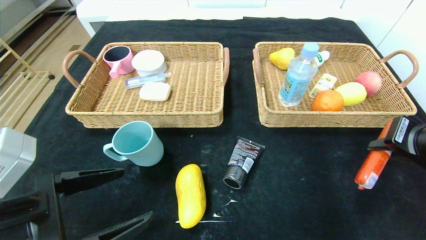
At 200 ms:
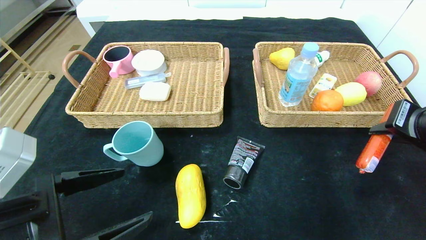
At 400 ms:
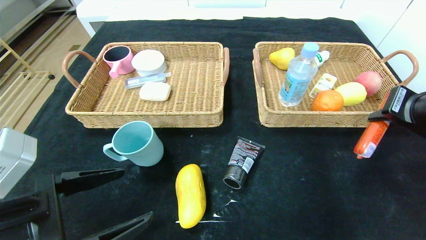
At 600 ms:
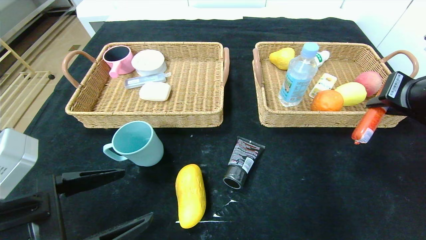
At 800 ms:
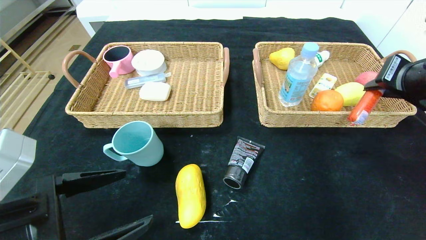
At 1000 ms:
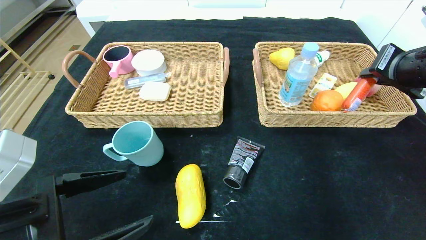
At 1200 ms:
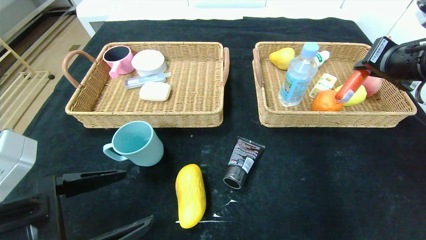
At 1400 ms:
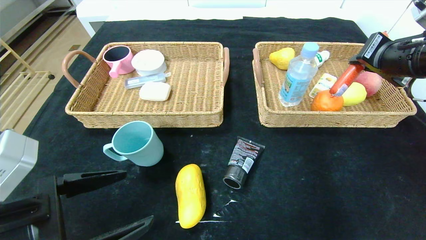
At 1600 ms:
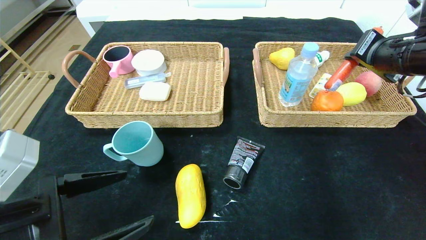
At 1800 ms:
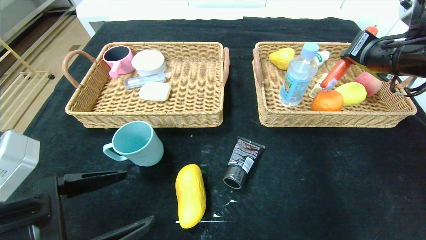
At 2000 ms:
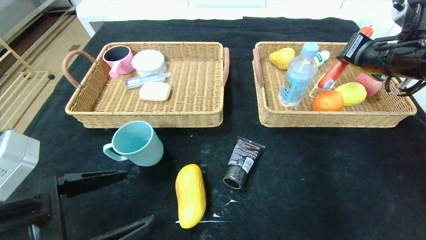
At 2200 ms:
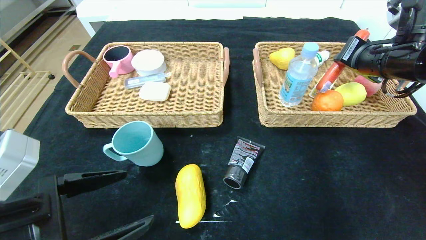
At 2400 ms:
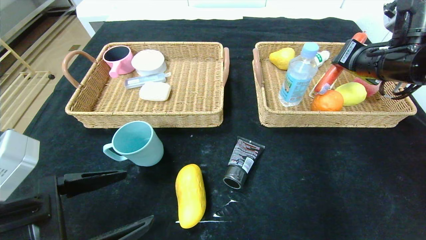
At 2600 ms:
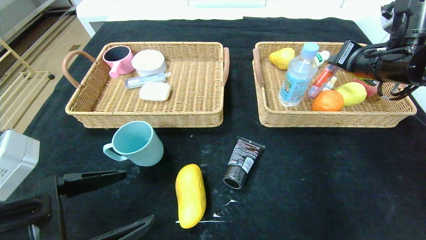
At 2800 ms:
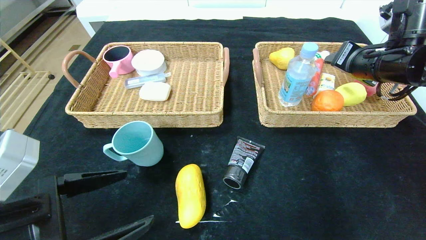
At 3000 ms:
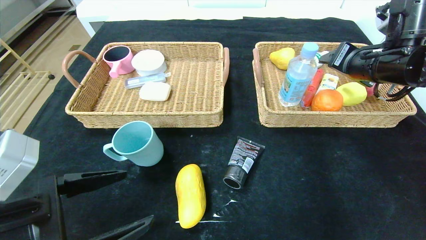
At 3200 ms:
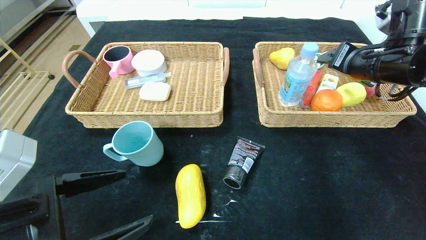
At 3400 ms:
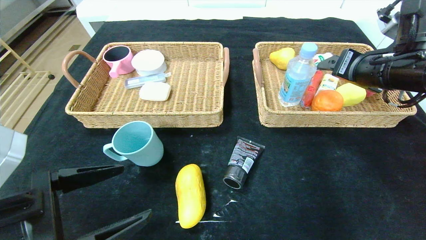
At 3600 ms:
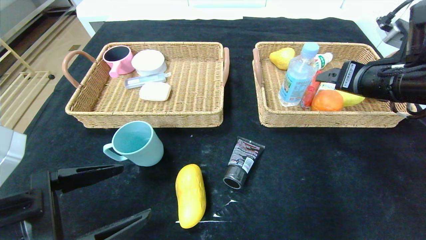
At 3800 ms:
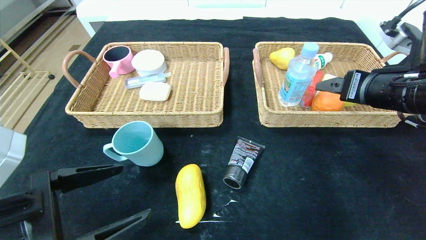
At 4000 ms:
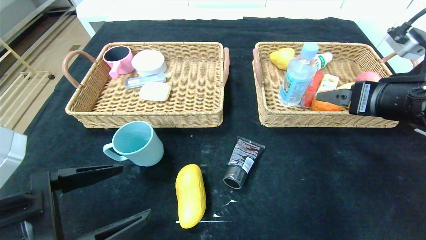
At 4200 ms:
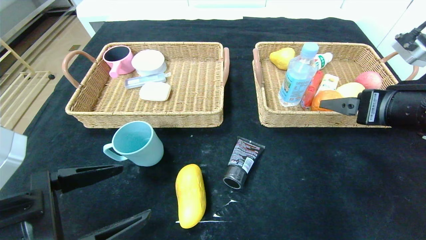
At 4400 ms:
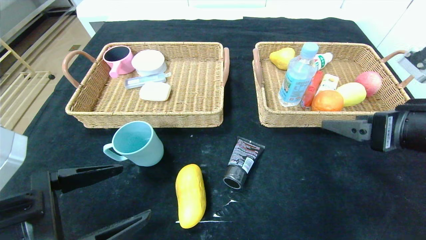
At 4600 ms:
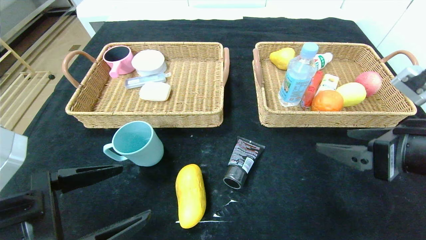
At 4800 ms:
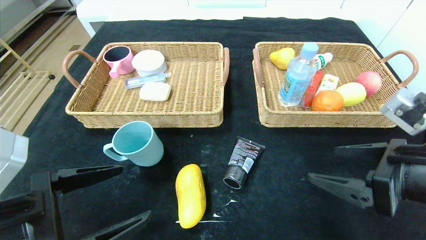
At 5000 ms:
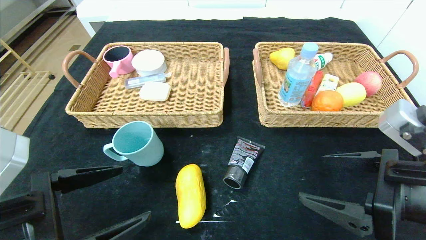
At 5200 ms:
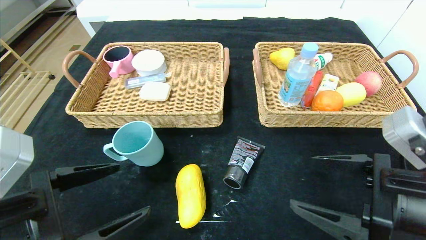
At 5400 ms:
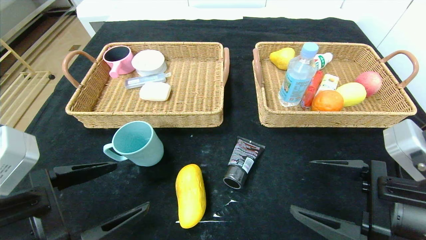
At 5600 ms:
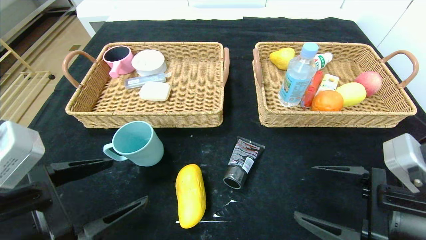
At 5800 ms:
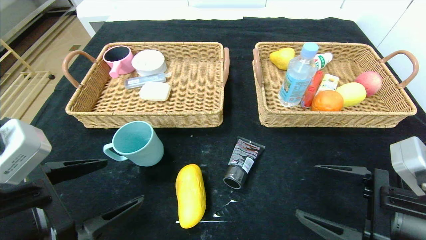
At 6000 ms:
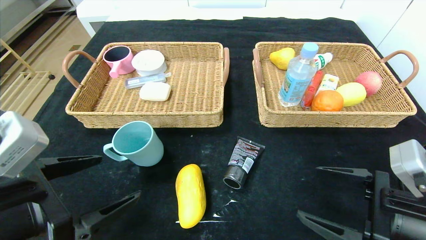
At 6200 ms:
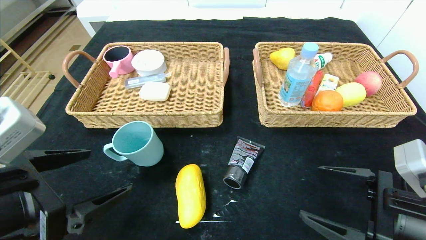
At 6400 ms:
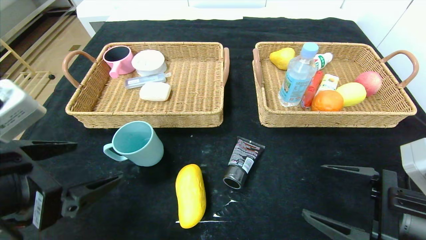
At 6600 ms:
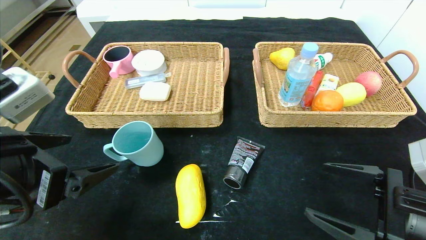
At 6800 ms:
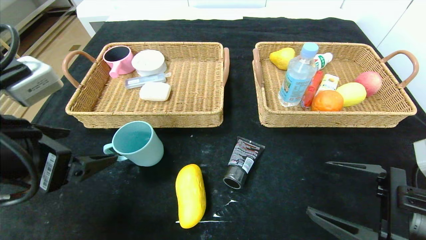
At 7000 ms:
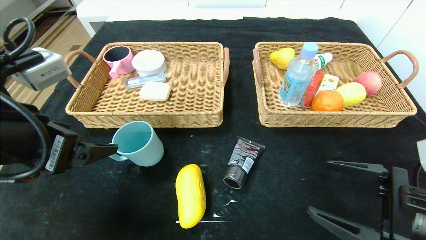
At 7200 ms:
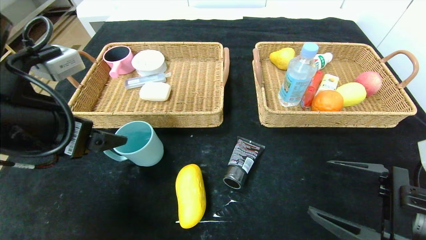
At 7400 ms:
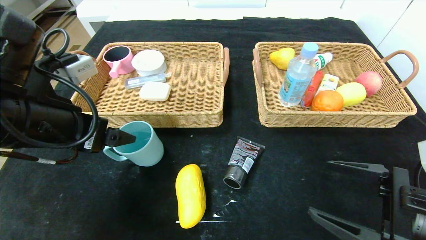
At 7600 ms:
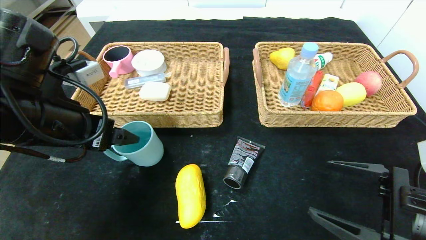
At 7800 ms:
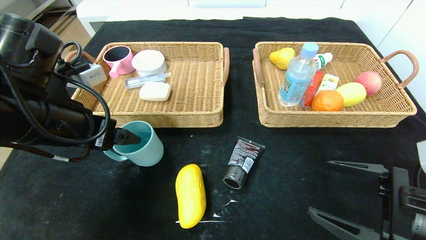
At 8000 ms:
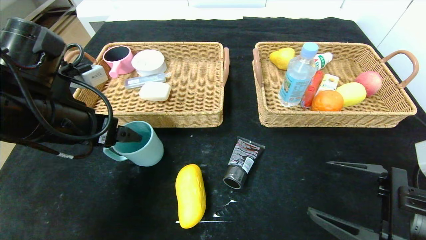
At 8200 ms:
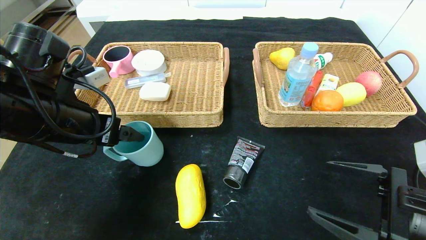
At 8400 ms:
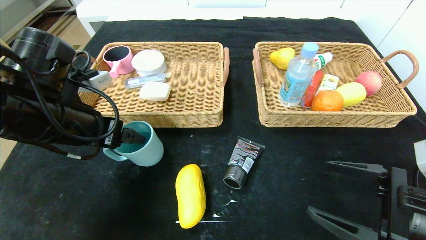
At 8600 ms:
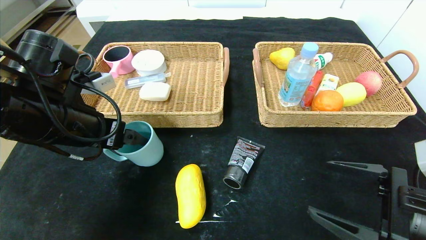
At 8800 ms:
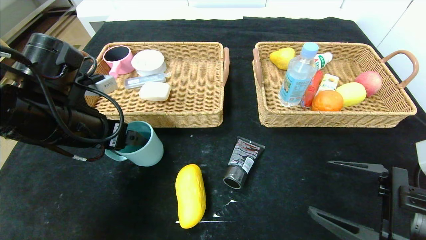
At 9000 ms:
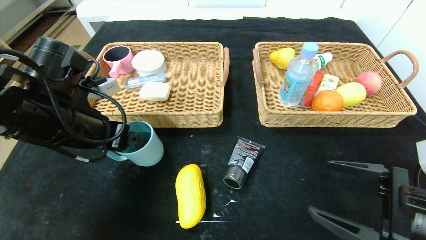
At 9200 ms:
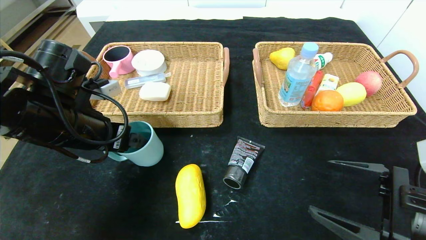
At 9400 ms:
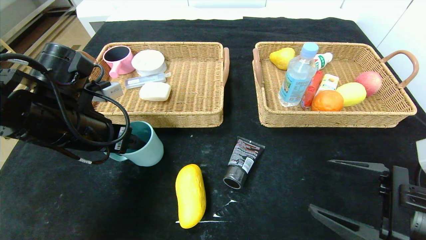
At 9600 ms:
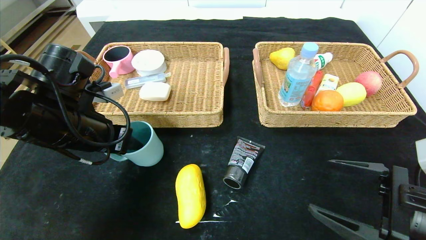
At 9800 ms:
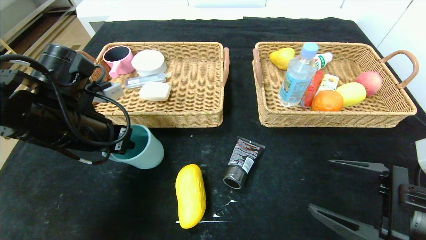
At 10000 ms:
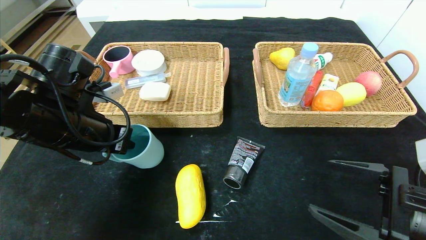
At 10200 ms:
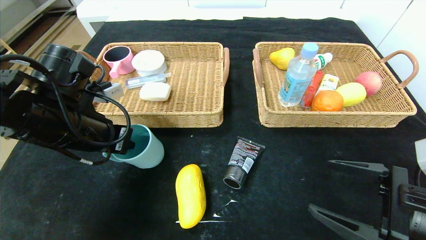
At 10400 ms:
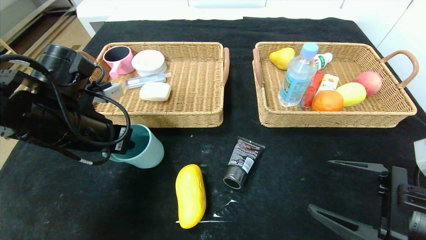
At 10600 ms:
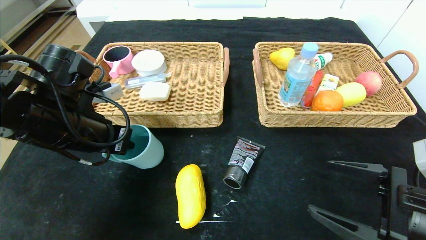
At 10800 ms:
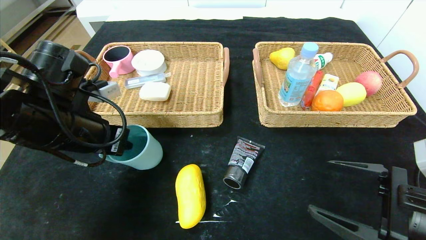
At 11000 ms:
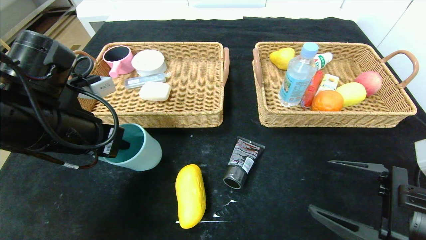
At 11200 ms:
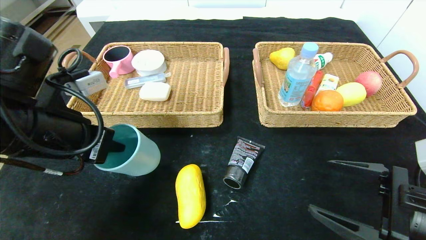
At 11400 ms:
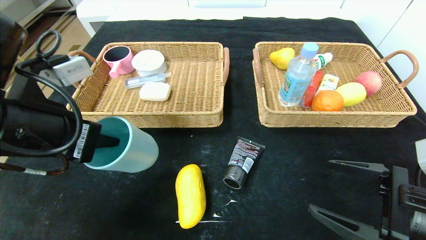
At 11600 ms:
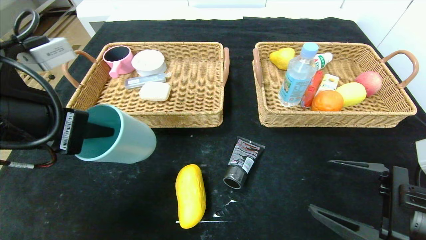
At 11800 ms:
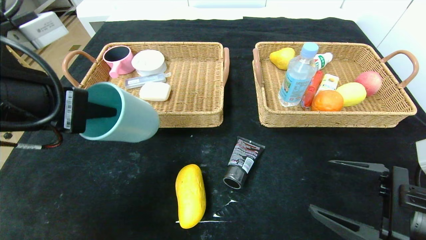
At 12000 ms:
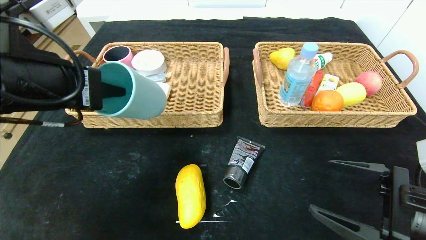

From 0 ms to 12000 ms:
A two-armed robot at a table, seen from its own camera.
Step, from 0 ms to 2800 ms: Grasp the sausage and put it in the right basket.
From 0 ms to 1600 ms: The right gripper goes approximately 15 cm forward and upward.
From 1600 ms to 3000 ms: The right gripper opens.
From 3000 ms to 4400 ms: The right gripper moves backward, approximately 15 cm.
From 4400 ms to 6000 ms: The right gripper travels downward and backward by approximately 10 cm.
From 6000 ms to 7600 ms: The left gripper travels forward and upward by about 10 cm.
From 7600 ms to 9000 ms: The grippers make only small movements.
From 9000 ms to 10400 ms: The left gripper closes up.
From 10400 ms to 12000 ms: The left gripper goes roughly 10 cm upward and backward.

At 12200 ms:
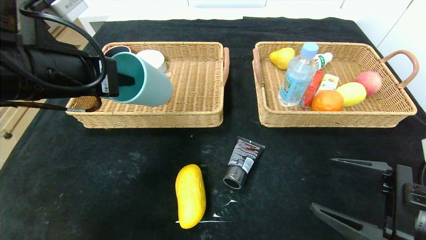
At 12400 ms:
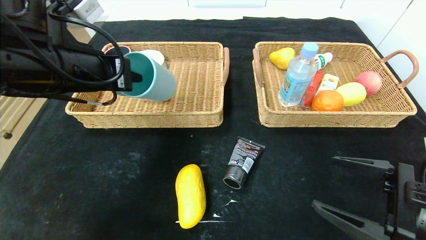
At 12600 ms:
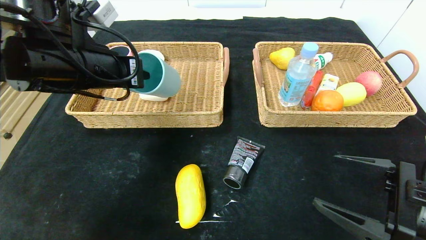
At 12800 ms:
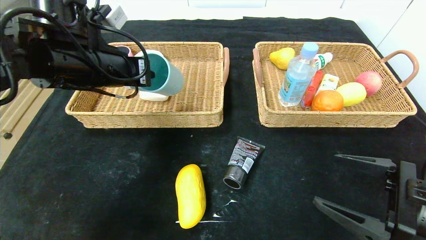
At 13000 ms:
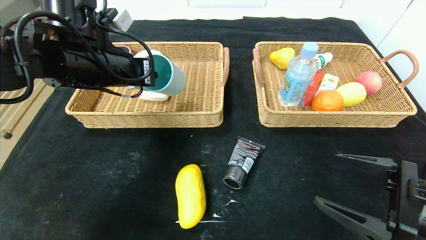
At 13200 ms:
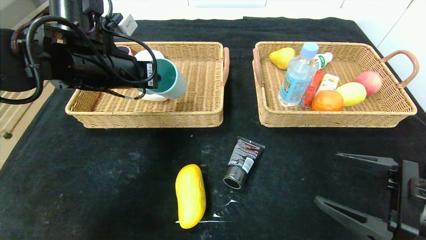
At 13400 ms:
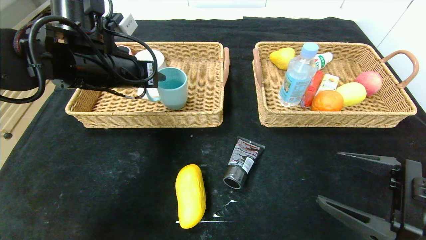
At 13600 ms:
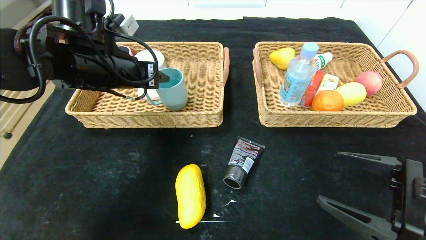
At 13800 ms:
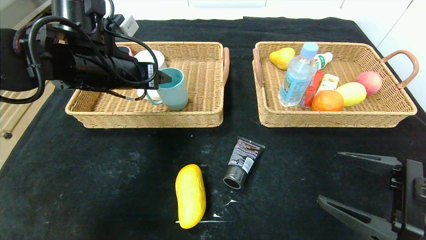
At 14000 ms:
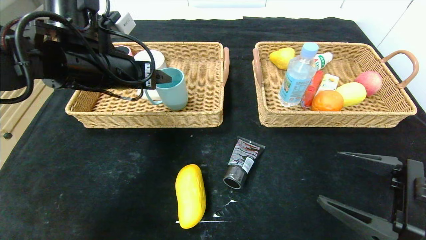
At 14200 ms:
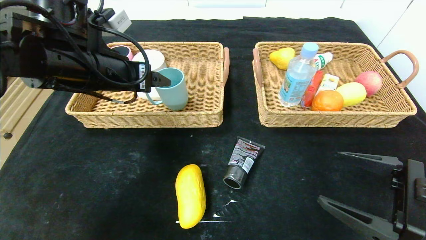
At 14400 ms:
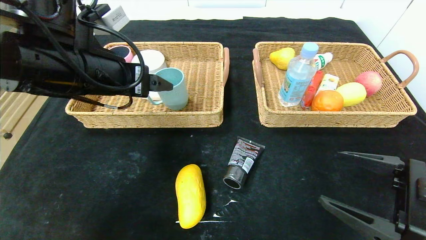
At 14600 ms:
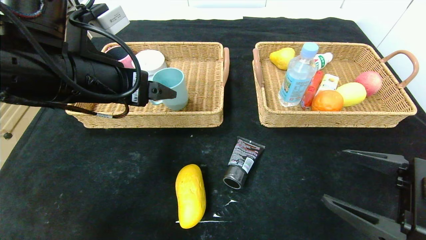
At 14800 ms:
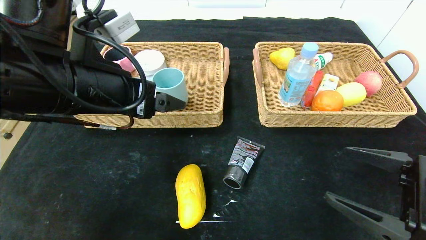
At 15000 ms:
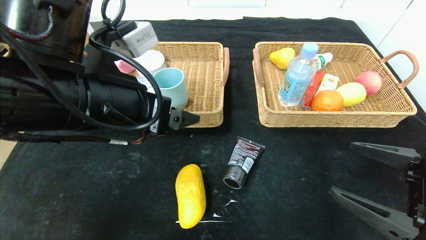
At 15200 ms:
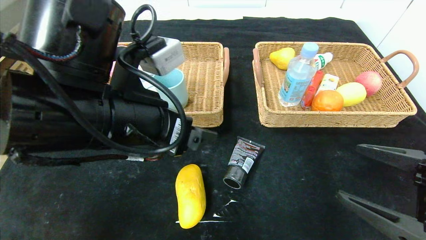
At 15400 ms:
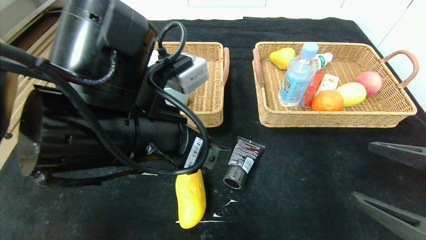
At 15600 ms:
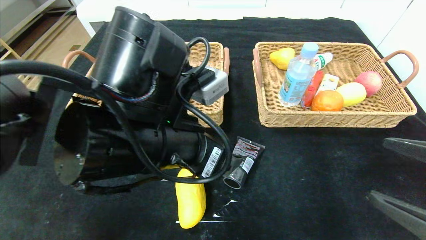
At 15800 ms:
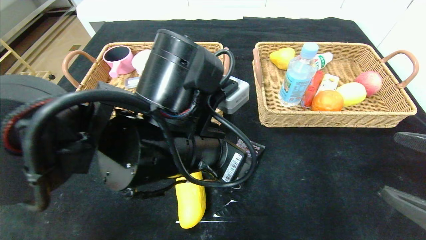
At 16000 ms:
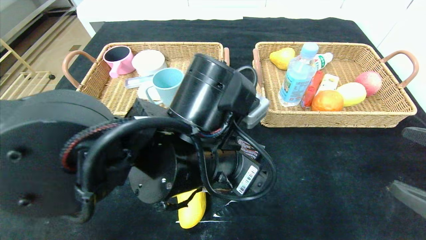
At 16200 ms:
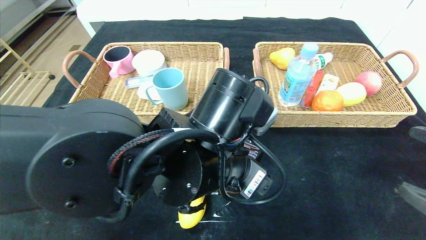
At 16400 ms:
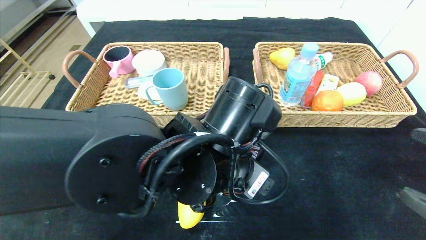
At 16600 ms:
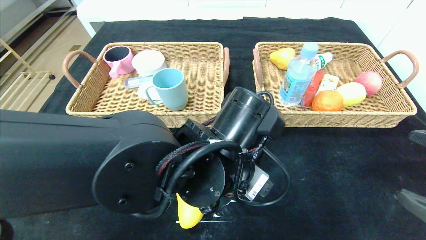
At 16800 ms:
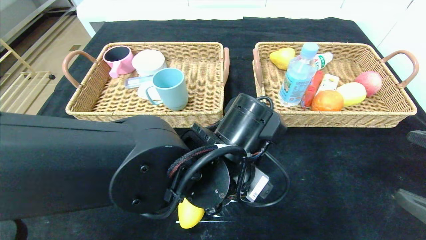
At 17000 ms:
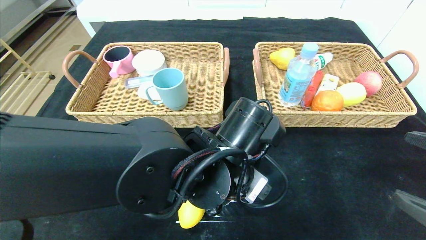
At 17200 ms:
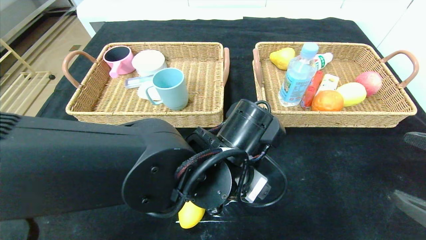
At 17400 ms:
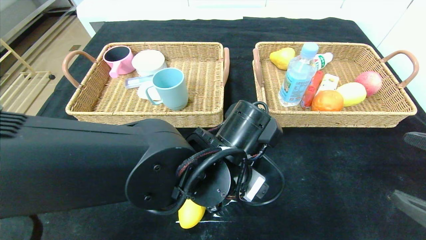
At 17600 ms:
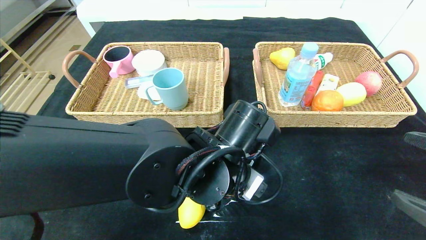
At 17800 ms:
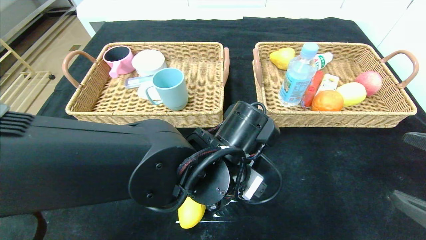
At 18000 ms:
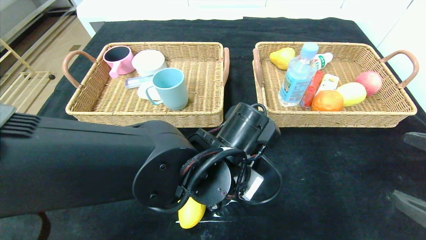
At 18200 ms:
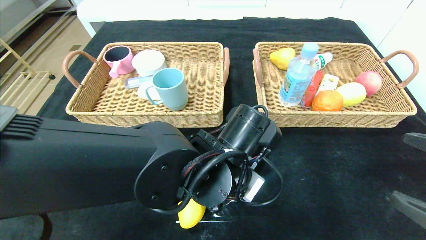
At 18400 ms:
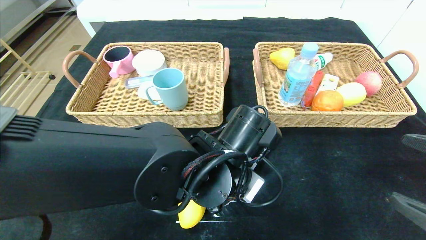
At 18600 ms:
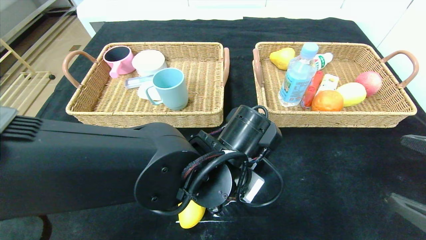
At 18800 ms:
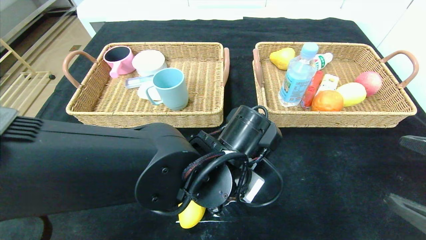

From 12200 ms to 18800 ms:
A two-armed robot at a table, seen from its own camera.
From 12200 ms to 13800 ms: The left gripper shifts about 10 cm forward, and opens up.
From 13800 ms to 15400 ms: The left gripper goes roughly 15 cm backward and to the right.
From 15400 ms to 17200 ms: The left gripper heads to the right and downward, covering roughly 15 cm.
From 17200 ms to 18800 ms: The left gripper closes its fingers.
